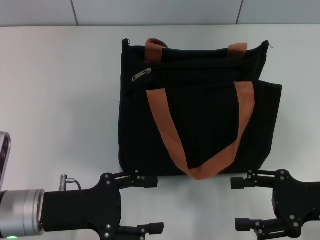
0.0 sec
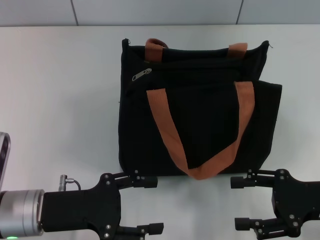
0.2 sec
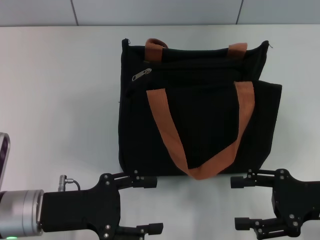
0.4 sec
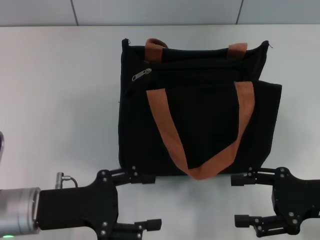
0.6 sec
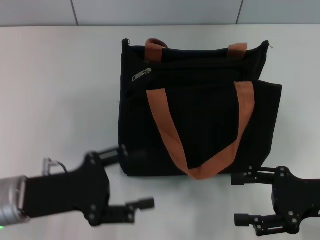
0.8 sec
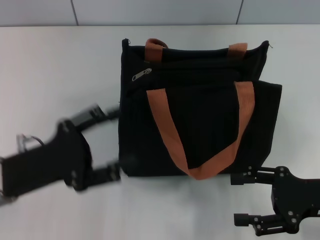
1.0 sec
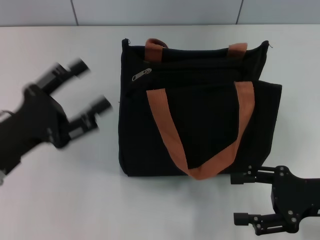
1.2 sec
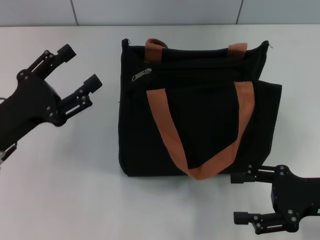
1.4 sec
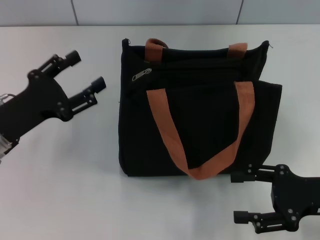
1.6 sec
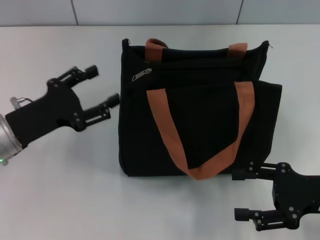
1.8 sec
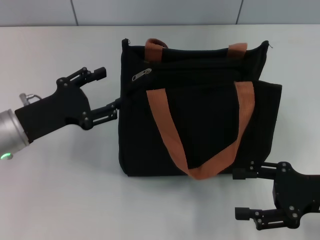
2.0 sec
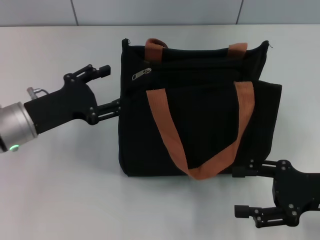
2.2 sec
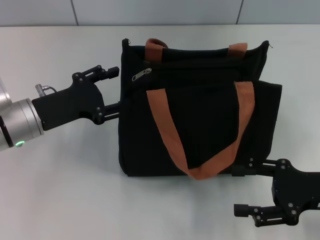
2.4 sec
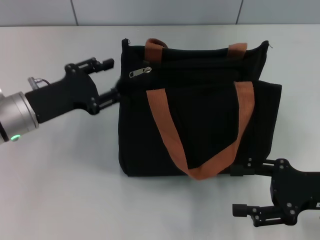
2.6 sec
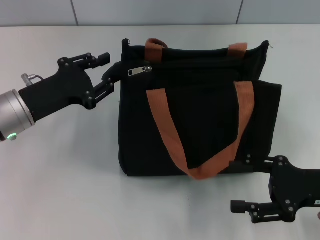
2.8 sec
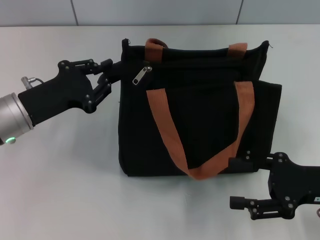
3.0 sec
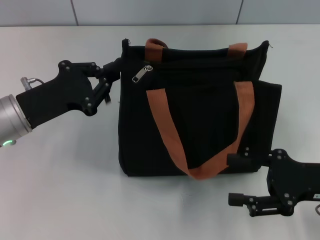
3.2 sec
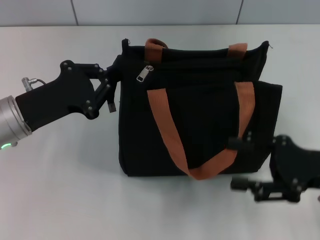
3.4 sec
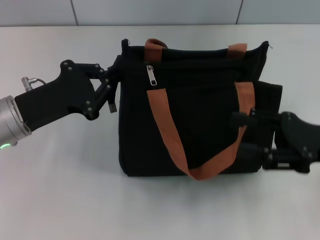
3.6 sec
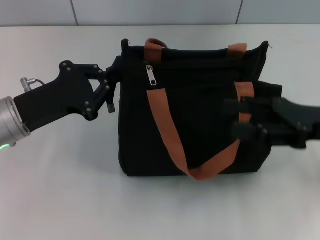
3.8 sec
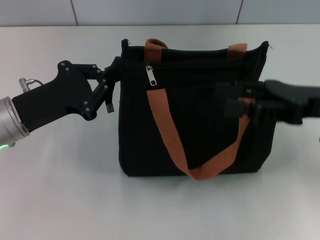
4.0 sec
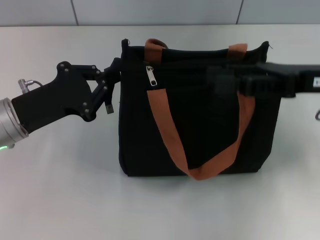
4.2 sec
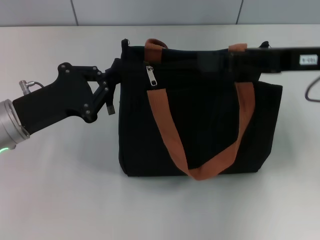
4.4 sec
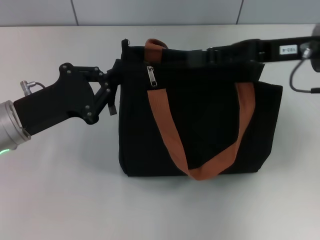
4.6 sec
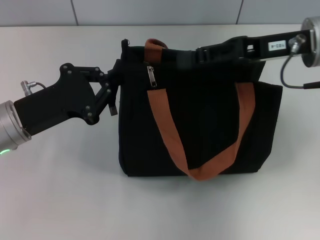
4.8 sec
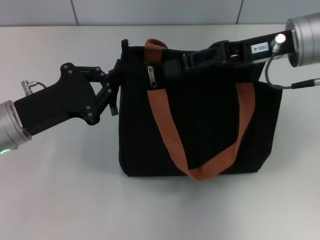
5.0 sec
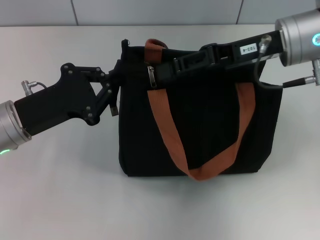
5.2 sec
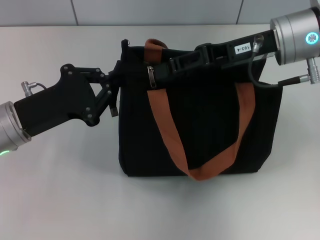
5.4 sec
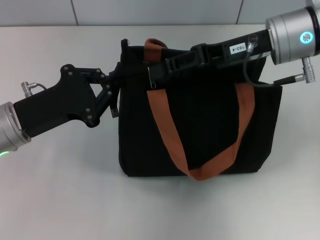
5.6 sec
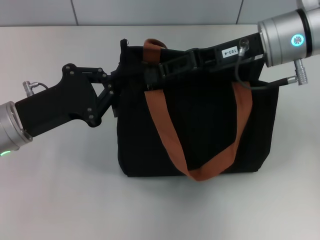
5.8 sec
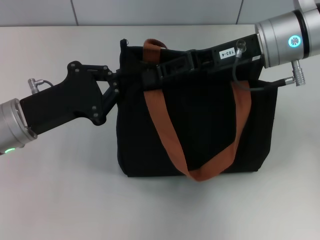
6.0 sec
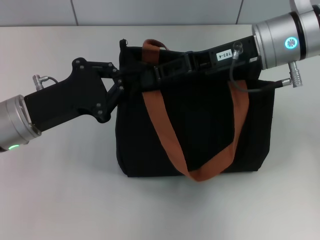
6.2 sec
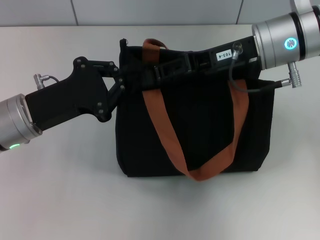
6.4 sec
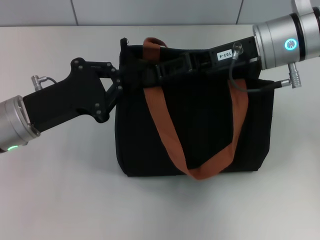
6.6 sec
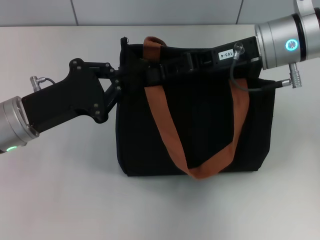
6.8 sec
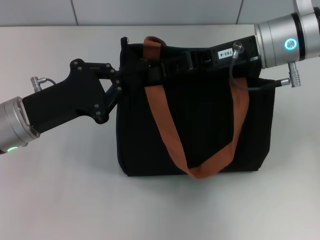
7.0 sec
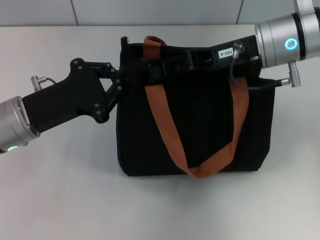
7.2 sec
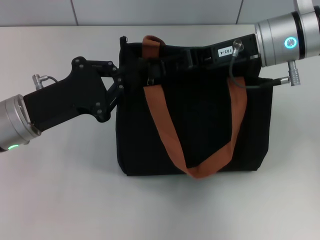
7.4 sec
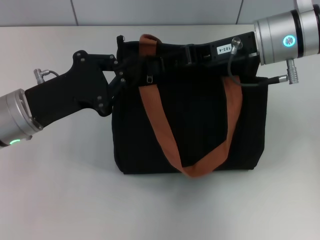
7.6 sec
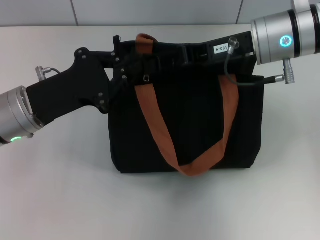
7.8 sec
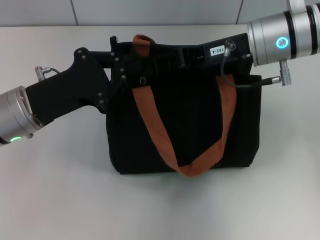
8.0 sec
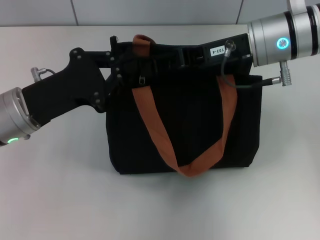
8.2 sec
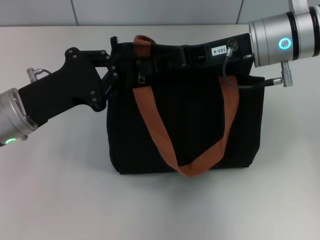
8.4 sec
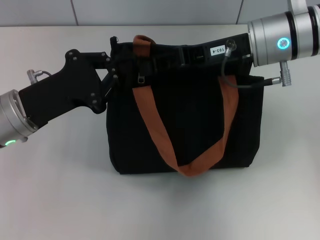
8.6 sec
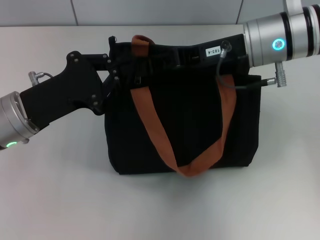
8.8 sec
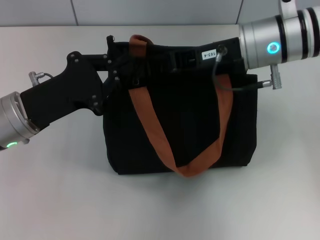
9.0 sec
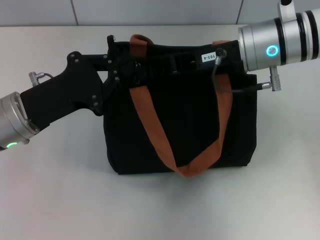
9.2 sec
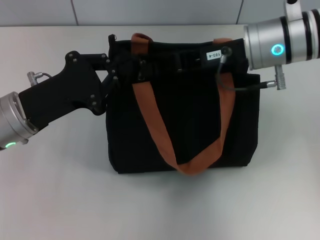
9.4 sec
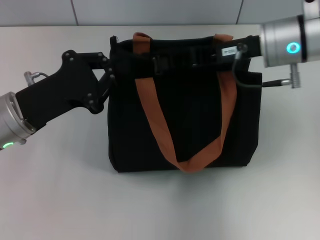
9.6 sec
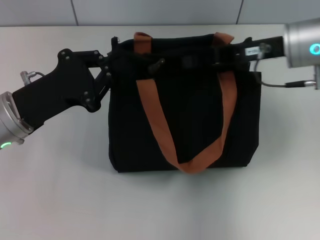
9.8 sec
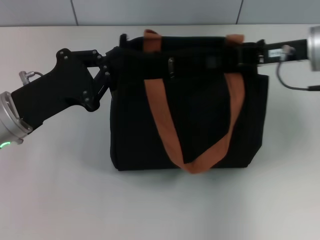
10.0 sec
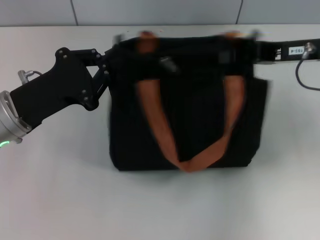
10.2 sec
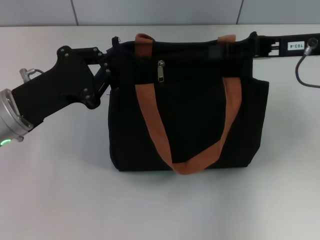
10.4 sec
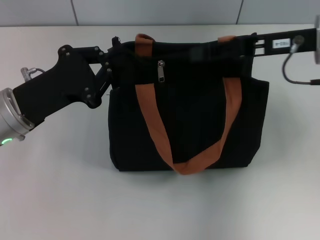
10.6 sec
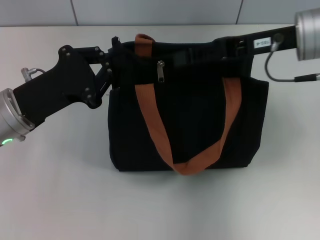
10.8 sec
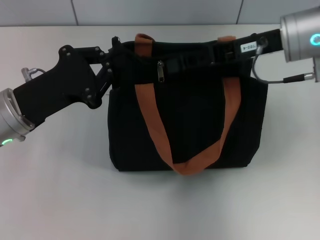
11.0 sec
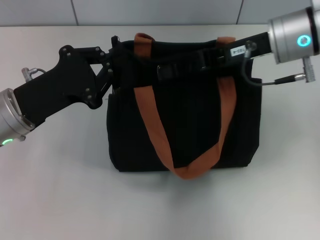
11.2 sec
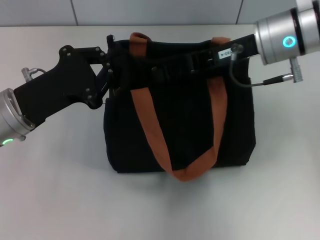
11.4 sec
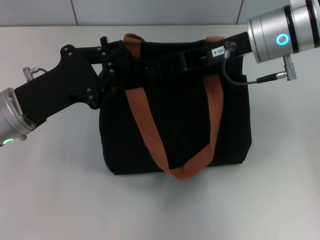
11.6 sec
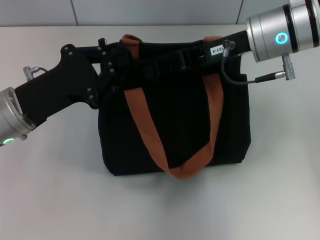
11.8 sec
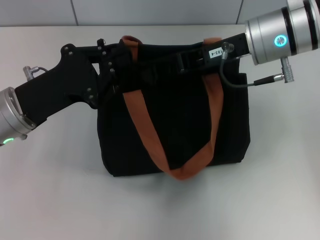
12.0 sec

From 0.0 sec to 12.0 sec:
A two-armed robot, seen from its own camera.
From 0.0 sec to 1.6 sec: The left gripper ends up some 5 cm from where it was.
From 1.6 sec to 3.0 sec: The left gripper changes place by some 5 cm, and closes its fingers.
From 3.0 sec to 4.4 sec: The left gripper closes. The right gripper heads forward and upward, covering some 15 cm.
From 4.4 sec to 6.0 sec: The right gripper is displaced to the left by about 10 cm.
From 6.0 sec to 9.0 sec: The grippers make only small movements.
From 9.0 sec to 10.4 sec: The right gripper moves to the right, some 10 cm.
From 10.4 sec to 12.0 sec: The right gripper moves to the left, about 10 cm.

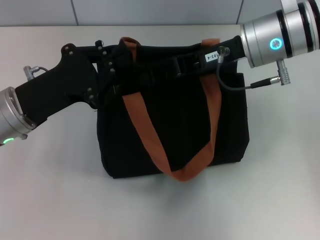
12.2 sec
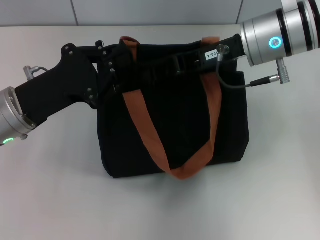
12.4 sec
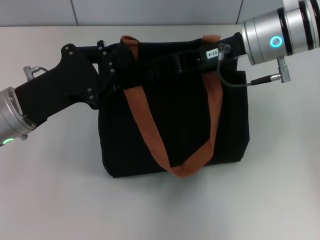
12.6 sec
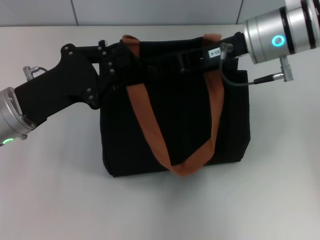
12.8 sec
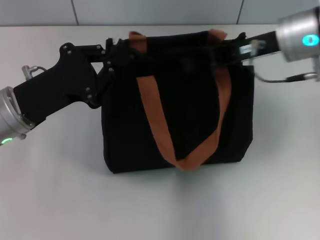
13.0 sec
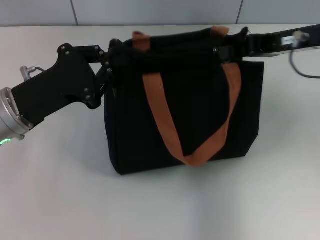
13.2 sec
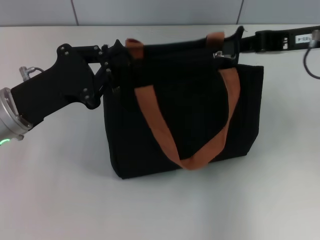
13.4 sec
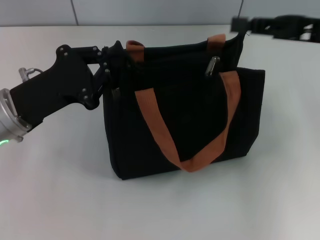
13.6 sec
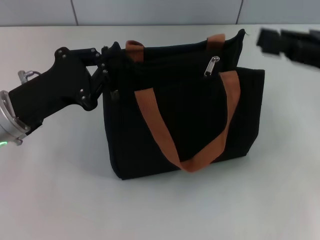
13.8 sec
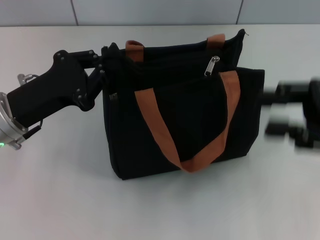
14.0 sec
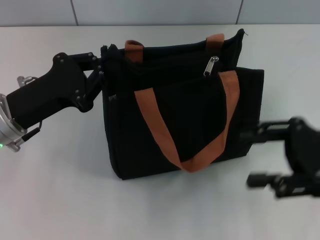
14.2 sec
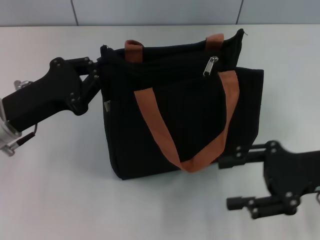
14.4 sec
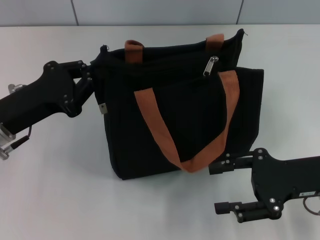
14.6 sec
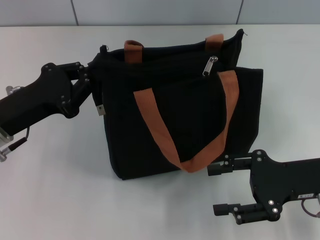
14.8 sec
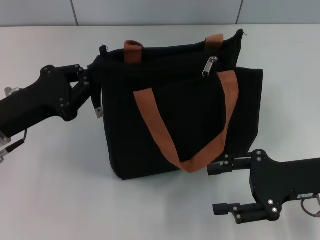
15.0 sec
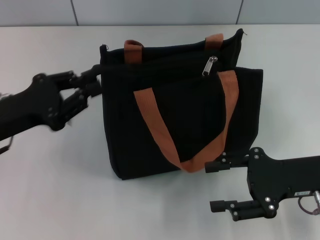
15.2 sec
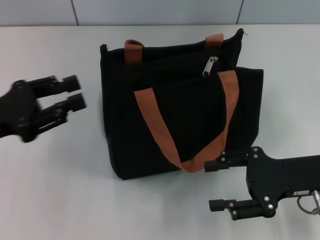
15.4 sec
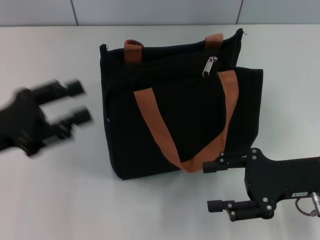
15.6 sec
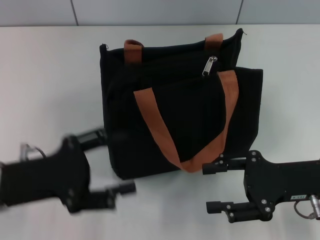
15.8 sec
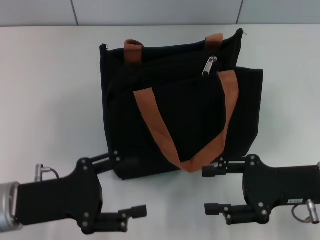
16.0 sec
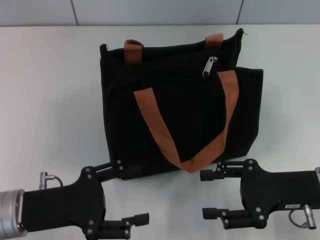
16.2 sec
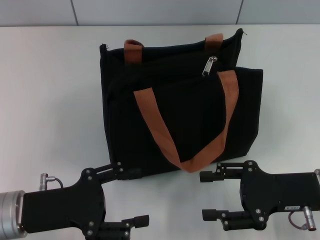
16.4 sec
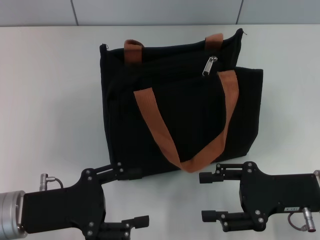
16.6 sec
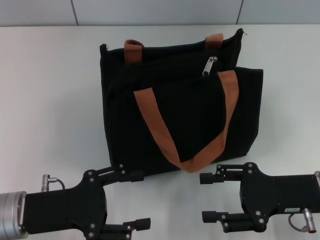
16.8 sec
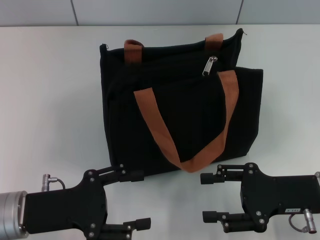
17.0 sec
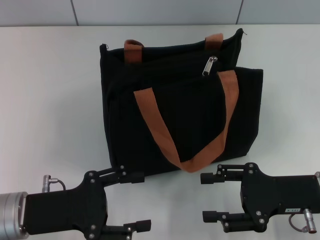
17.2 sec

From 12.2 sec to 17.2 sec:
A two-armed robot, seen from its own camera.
Step, from 14.2 sec to 15.6 sec: Grab the zipper with your left hand.
From 12.2 sec to 13.8 sec: The right gripper goes approximately 15 cm to the right and backward.
From 13.8 sec to 15.6 sec: The left gripper goes roughly 5 cm to the left, and opens its fingers, while the right gripper travels downward by roughly 10 cm, and opens up.
From 15.6 sec to 17.2 sec: The left gripper moves downward and to the right, approximately 10 cm, and opens its fingers.

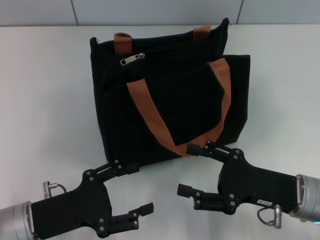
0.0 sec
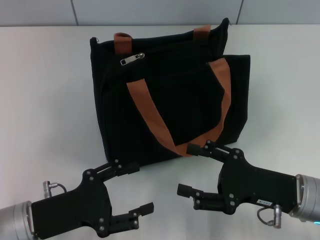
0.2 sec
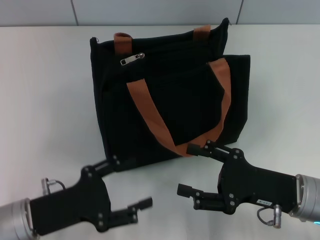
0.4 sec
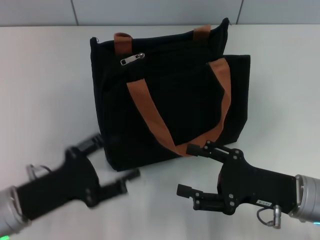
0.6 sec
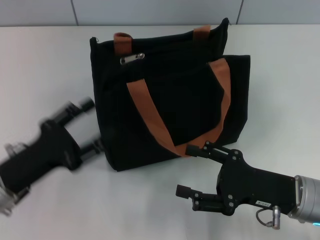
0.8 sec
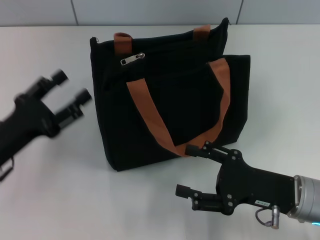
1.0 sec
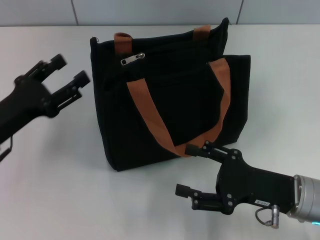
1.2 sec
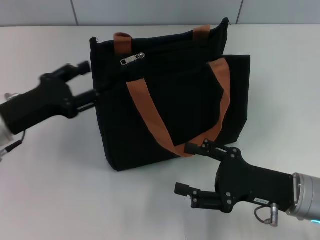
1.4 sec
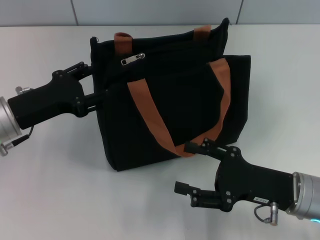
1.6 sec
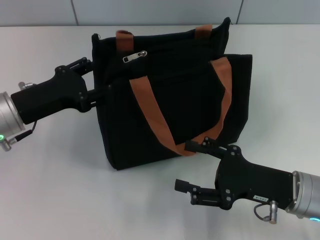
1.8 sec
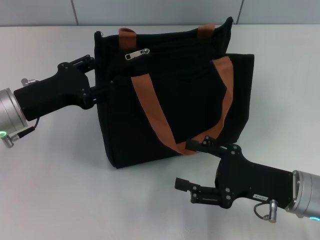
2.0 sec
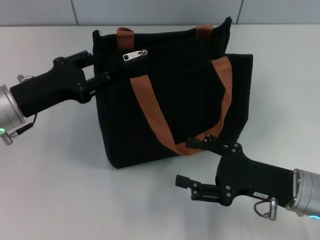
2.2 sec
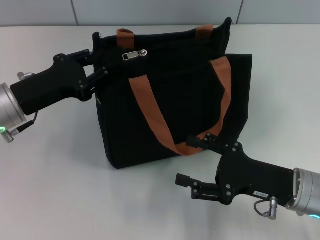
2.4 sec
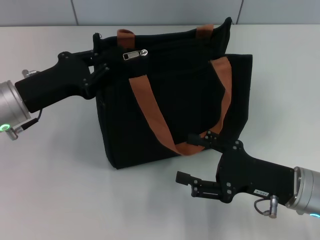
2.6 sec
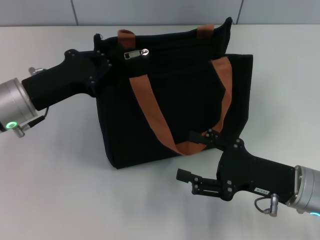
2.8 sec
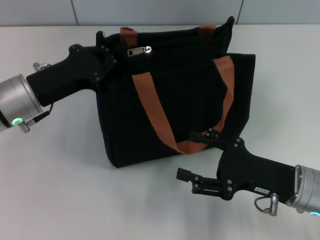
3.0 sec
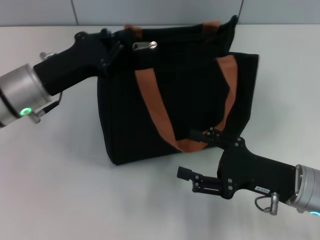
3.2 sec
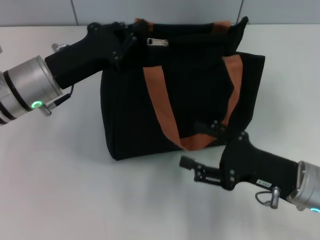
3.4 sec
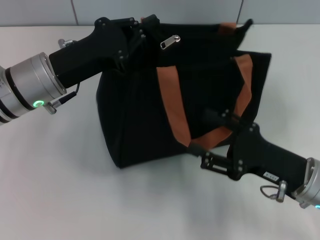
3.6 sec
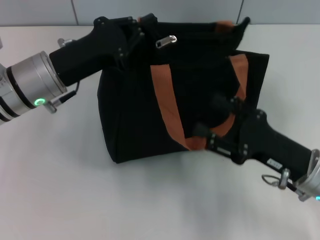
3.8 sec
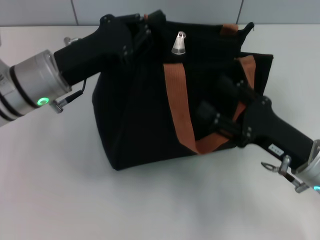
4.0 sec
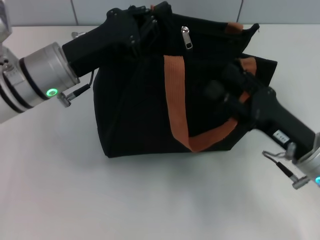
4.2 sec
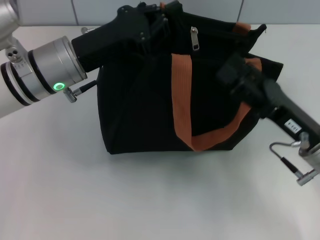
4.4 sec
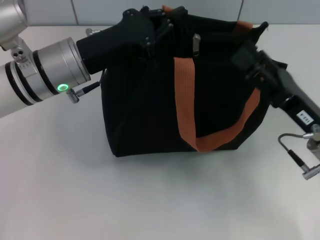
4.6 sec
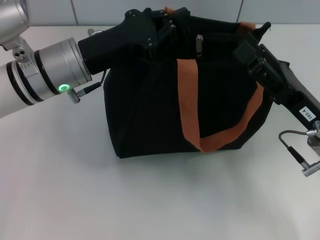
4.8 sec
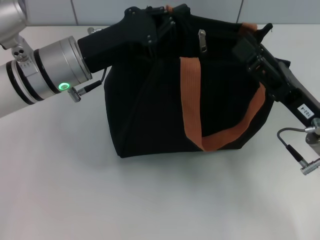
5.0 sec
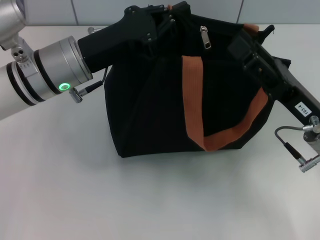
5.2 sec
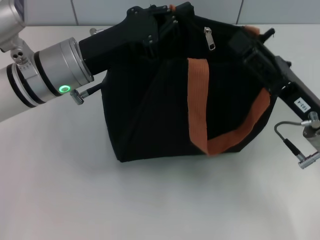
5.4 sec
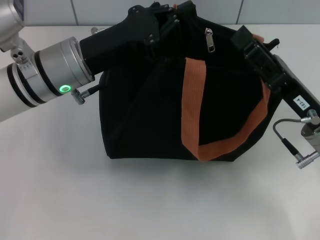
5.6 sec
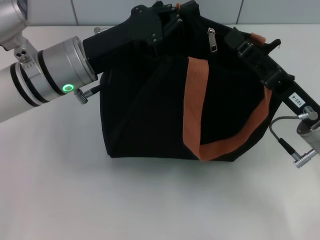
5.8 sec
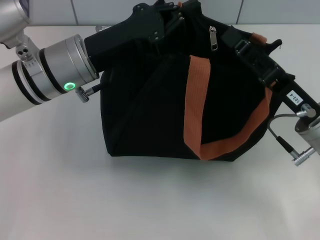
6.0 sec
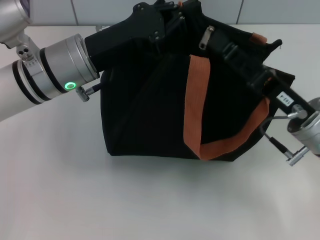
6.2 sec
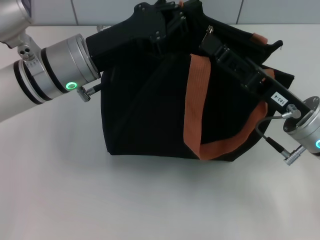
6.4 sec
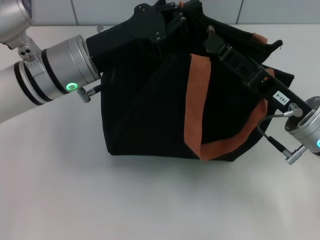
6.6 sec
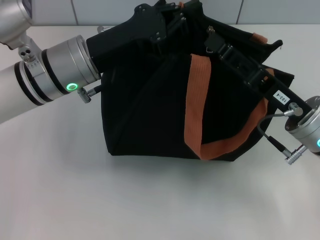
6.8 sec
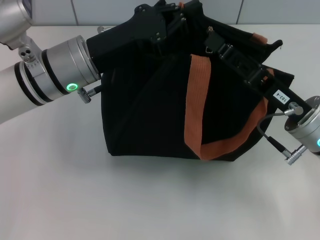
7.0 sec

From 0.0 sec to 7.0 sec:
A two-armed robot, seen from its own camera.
From 0.0 sec to 1.4 sec: The left gripper moves forward and upward, some 10 cm.
From 1.4 sec to 2.8 sec: The left gripper closes its fingers.
From 2.8 sec to 4.2 sec: The left gripper heads to the right, covering approximately 5 cm.
From 5.6 sec to 7.0 sec: There are only small adjustments of the grippers.
